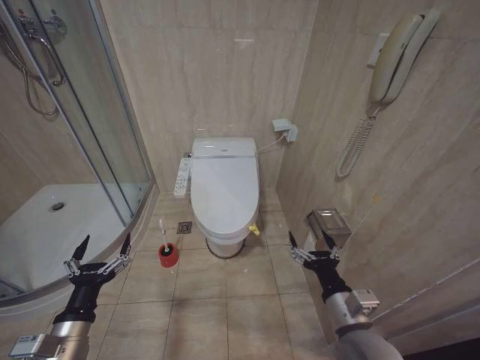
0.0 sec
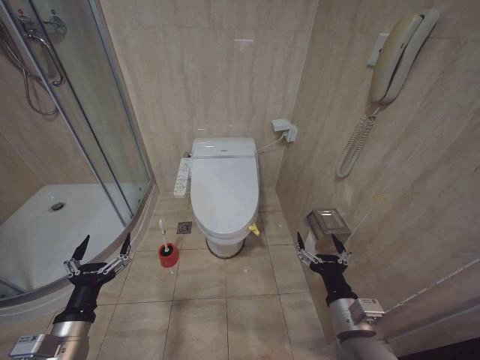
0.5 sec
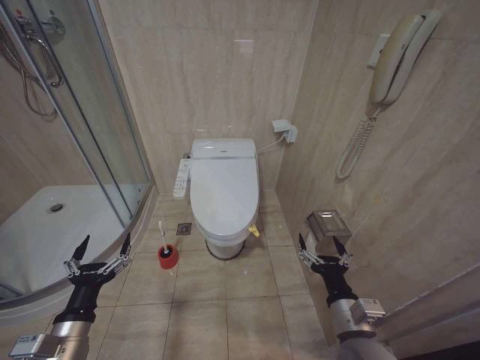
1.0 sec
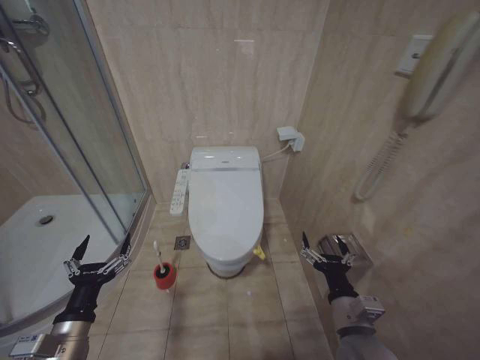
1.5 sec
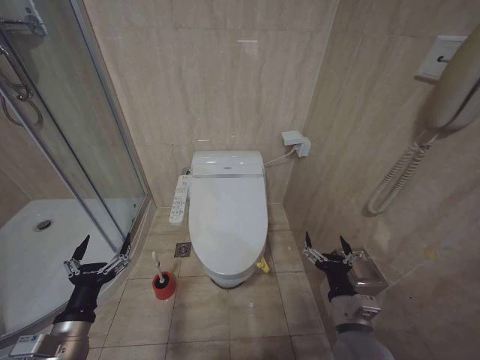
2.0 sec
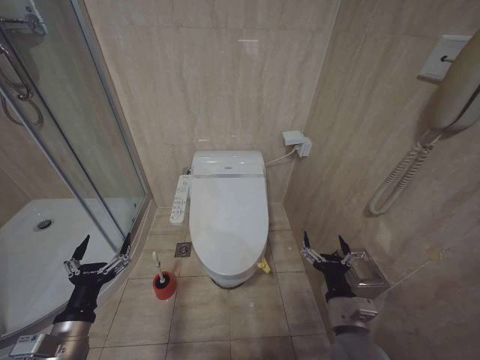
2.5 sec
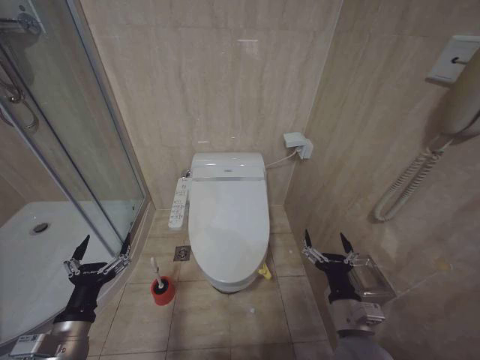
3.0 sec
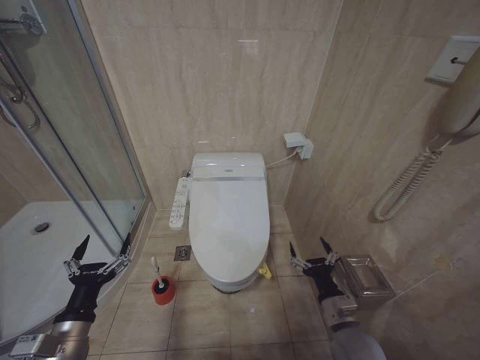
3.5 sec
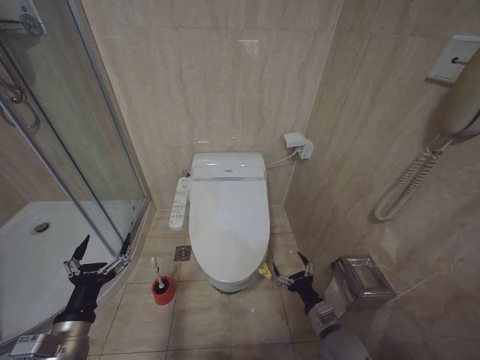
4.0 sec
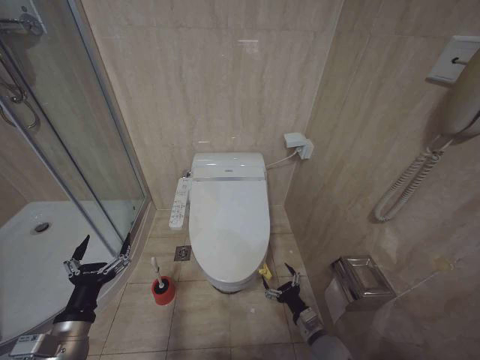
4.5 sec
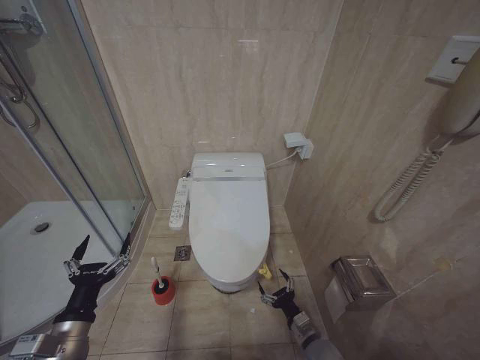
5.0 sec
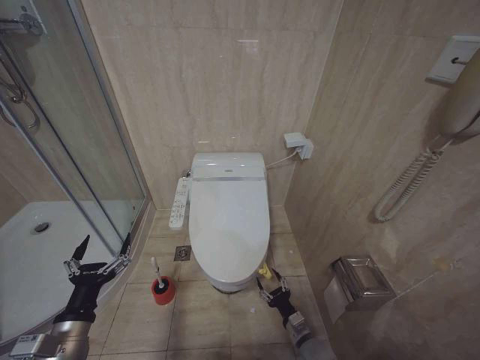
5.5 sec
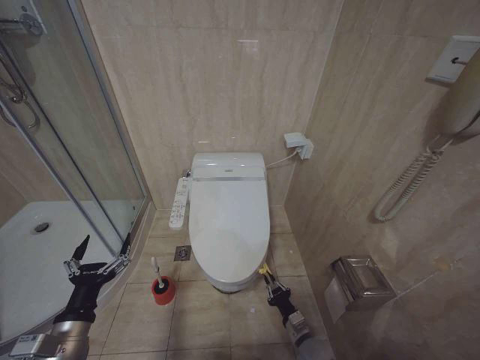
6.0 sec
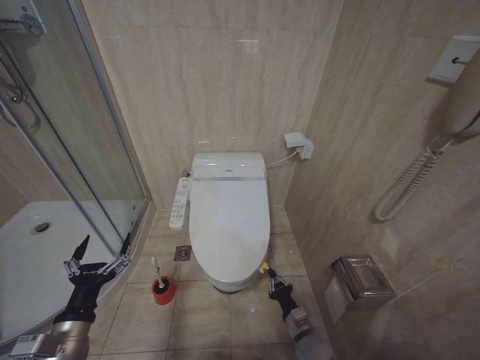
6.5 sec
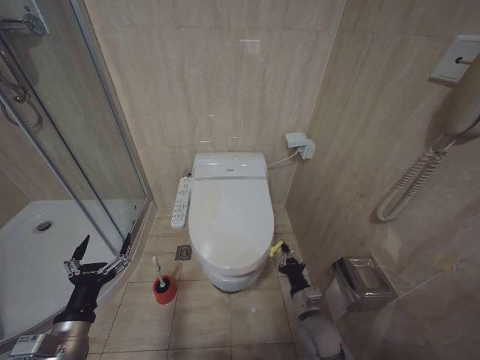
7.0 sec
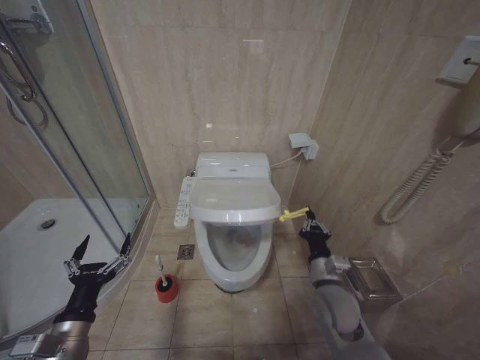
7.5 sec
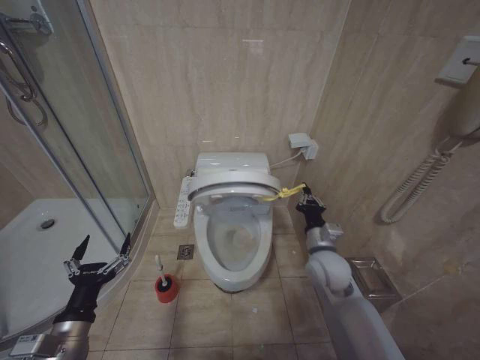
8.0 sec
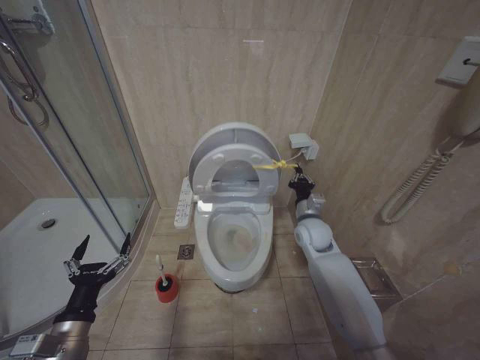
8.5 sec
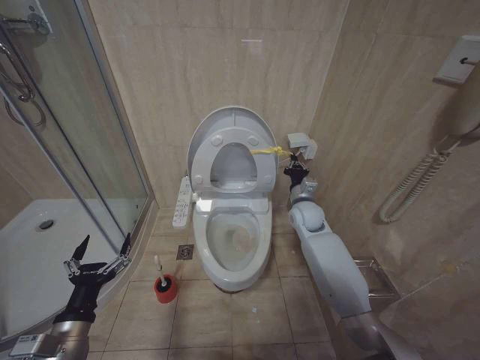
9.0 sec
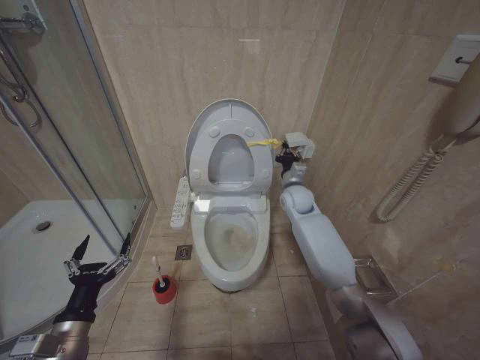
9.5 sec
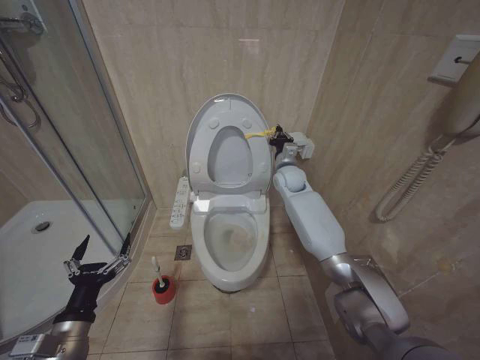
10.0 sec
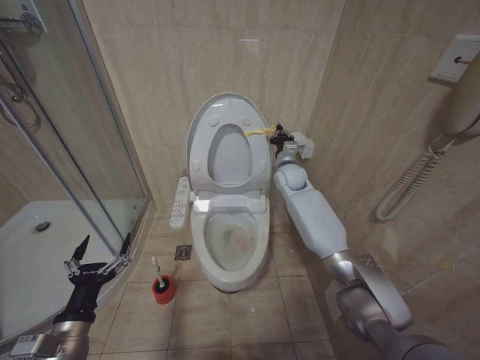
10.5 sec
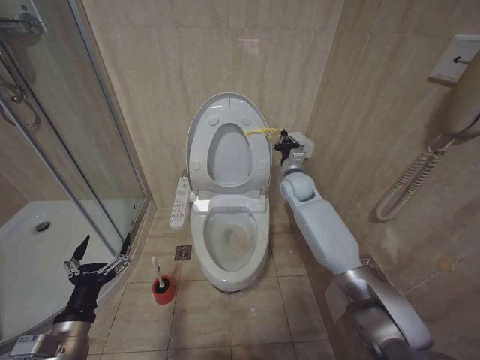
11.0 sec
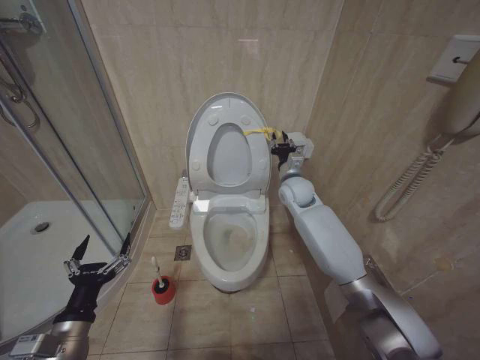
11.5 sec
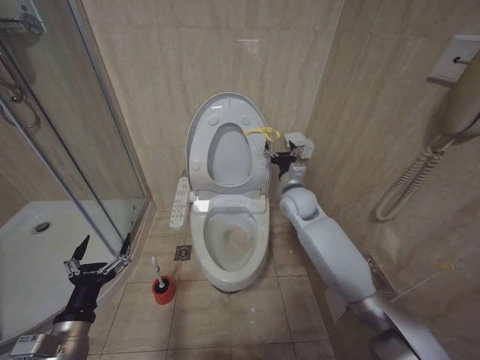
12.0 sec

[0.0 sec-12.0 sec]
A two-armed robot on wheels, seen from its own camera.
Task of the whole recording: Open the toilet lid, clean the toilet bowl with a toilet brush, close the toilet lid, and flush.
2.0 sec to 4.0 sec: The right gripper moves downward, roughly 10 cm.
4.0 sec to 6.0 sec: The right gripper moves downward, about 10 cm, and closes up.
6.0 sec to 8.0 sec: The right gripper is displaced upward and forward by some 25 cm, and closes its fingers.
8.0 sec to 10.0 sec: The right gripper travels forward and upward by roughly 25 cm.
10.0 sec to 12.0 sec: The right gripper moves backward, some 10 cm, and opens up.

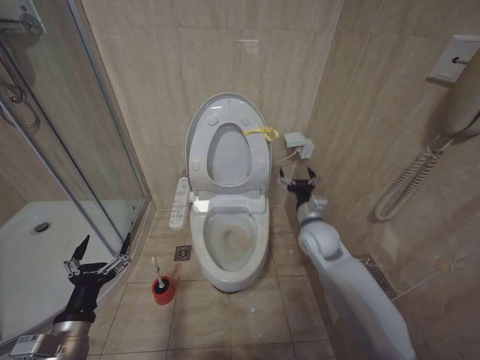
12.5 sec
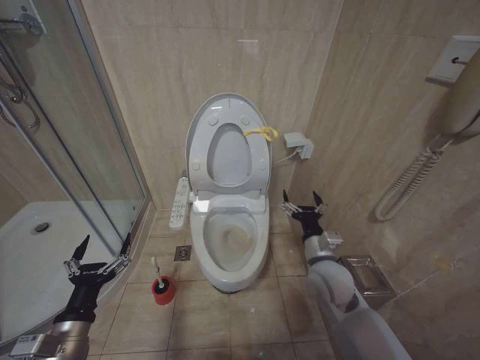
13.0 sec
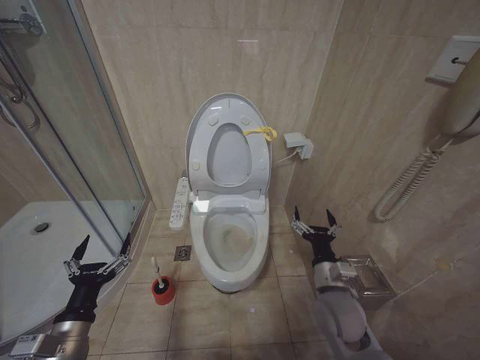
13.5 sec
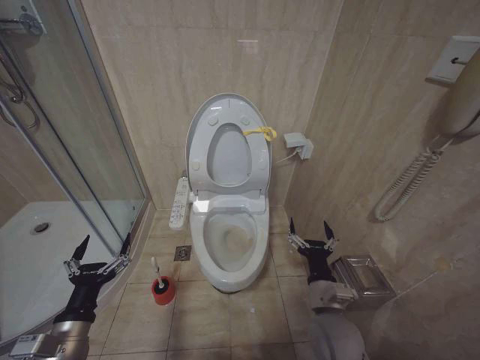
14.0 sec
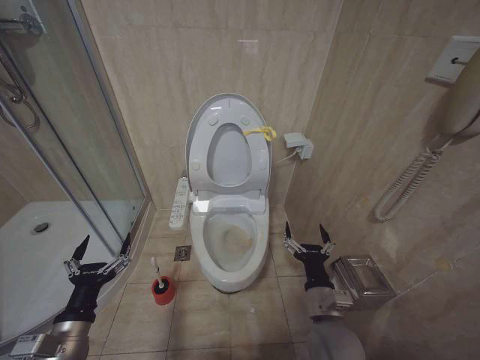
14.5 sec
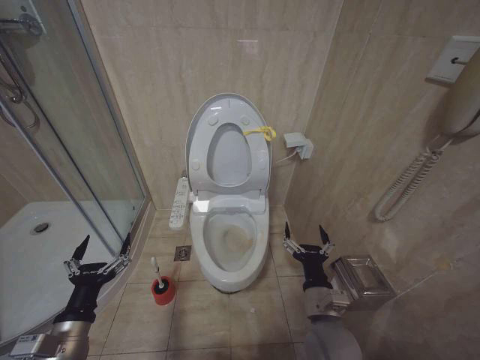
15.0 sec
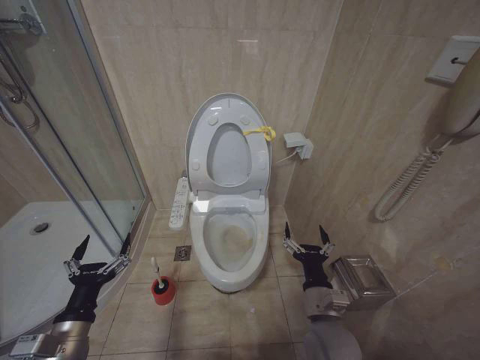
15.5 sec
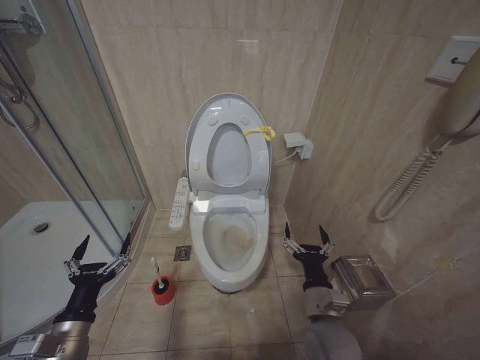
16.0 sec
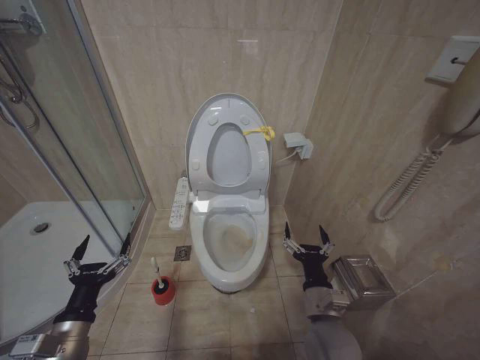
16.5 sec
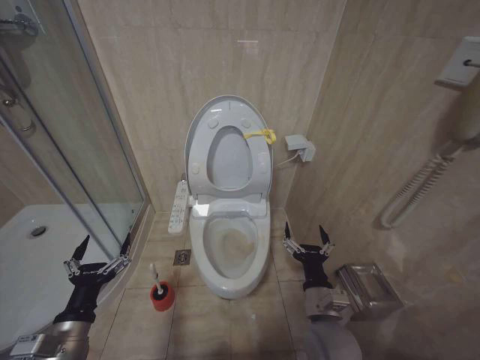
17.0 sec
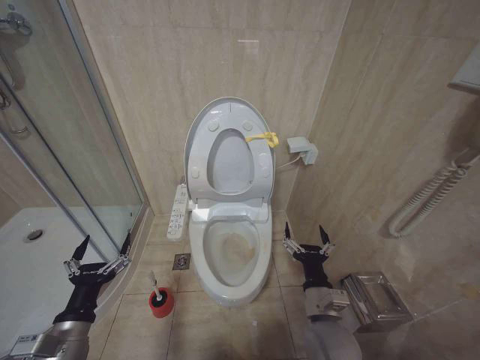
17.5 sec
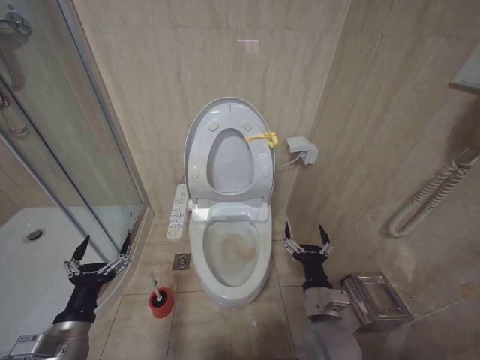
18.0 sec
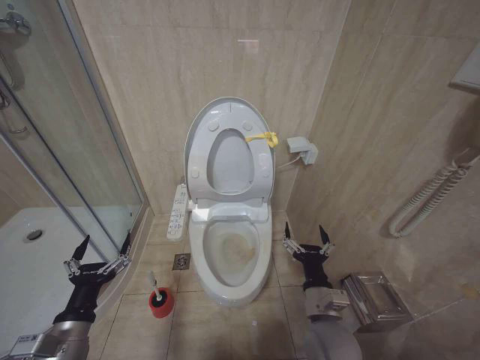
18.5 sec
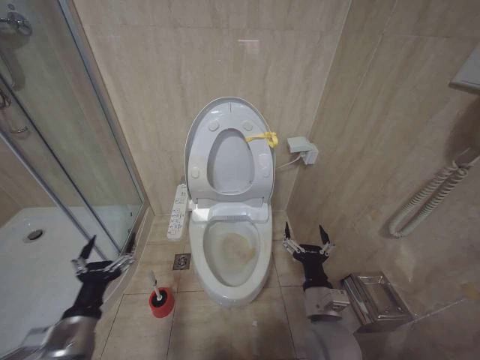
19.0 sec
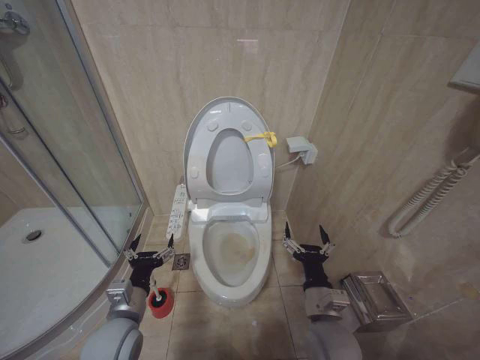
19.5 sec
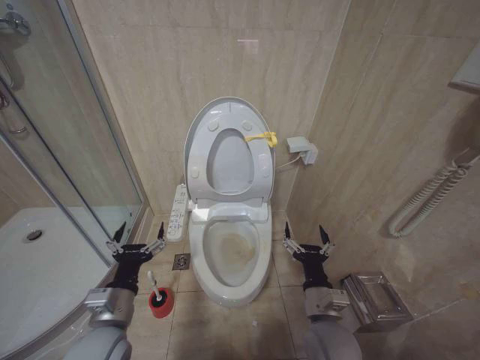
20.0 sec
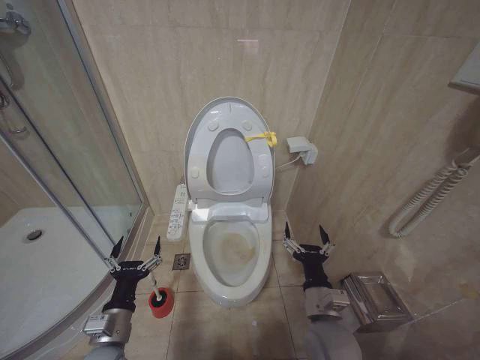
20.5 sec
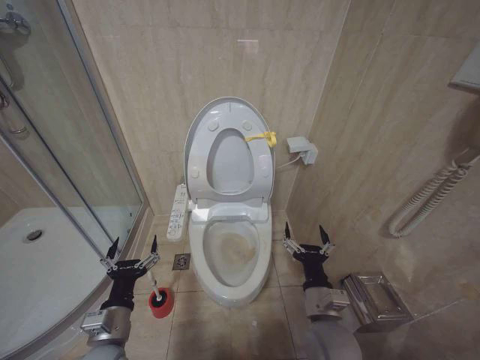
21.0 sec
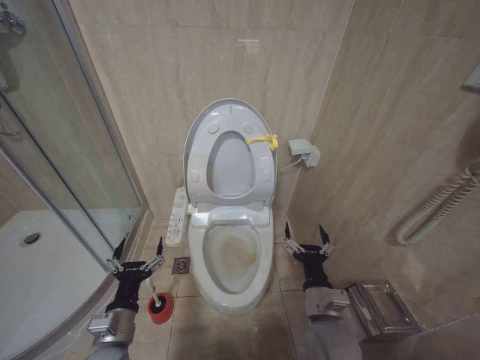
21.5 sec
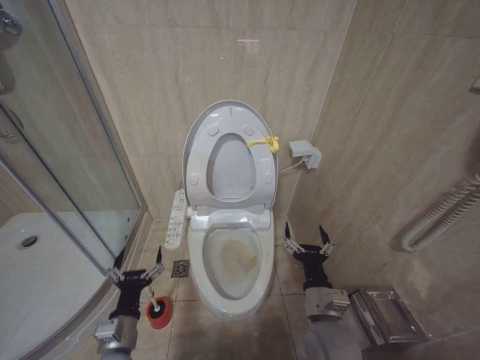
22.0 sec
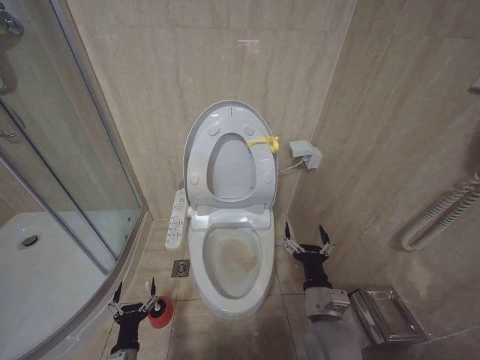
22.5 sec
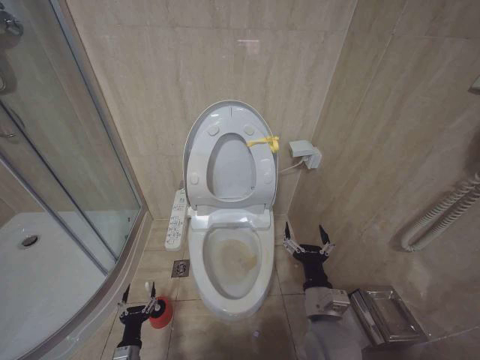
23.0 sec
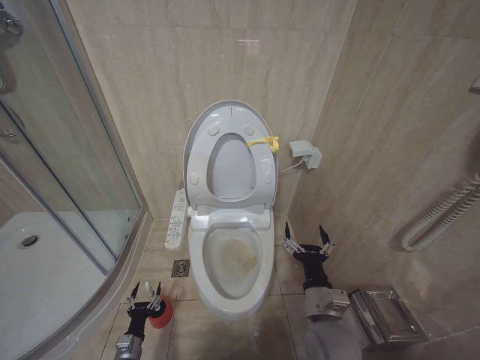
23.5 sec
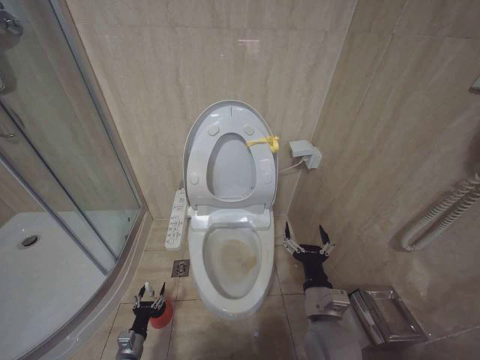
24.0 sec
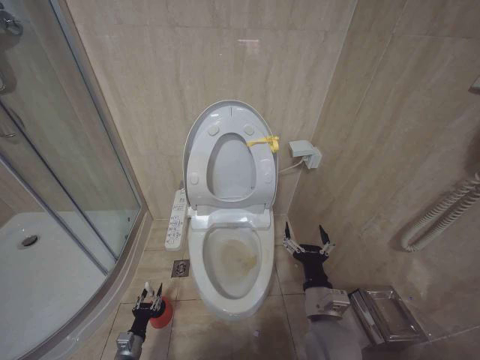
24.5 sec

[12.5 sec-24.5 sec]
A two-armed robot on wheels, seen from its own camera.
Task of the whole recording: Open the toilet lid, clean the toilet bowl with a toilet brush, close the toilet lid, and flush.
12.5 sec to 14.5 sec: The right gripper shifts some 25 cm backward and downward.
14.5 sec to 18.5 sec: Neither gripper changes place.
18.5 sec to 20.5 sec: The left gripper shifts some 5 cm to the right.
20.5 sec to 22.5 sec: The left gripper heads downward, covering approximately 15 cm.
22.5 sec to 24.5 sec: The left gripper is displaced downward, forward and to the left by some 15 cm.

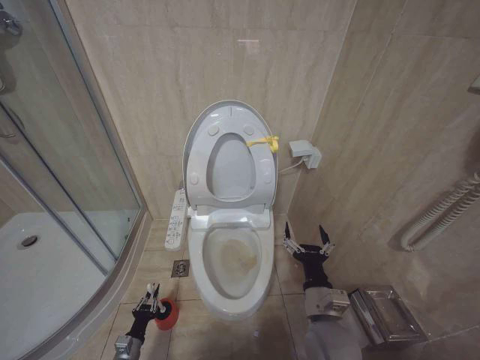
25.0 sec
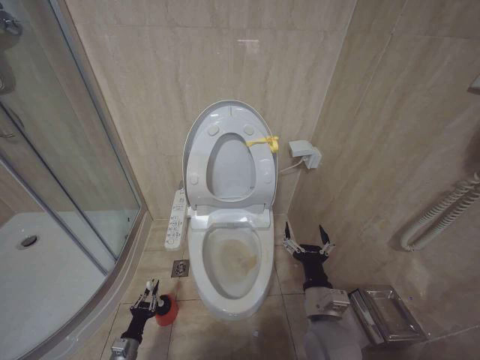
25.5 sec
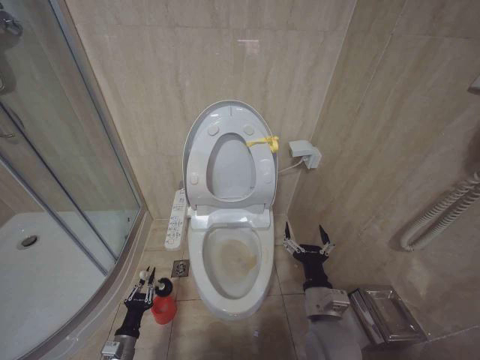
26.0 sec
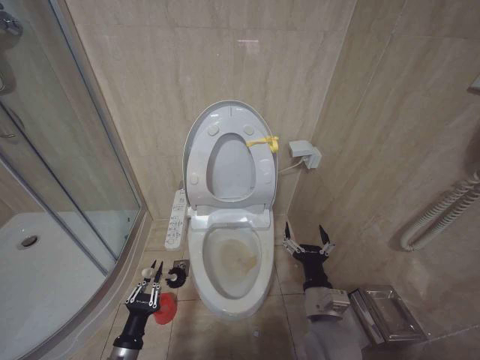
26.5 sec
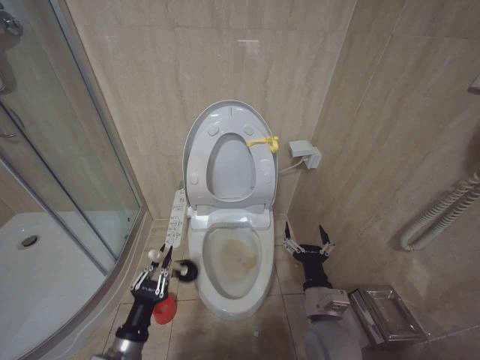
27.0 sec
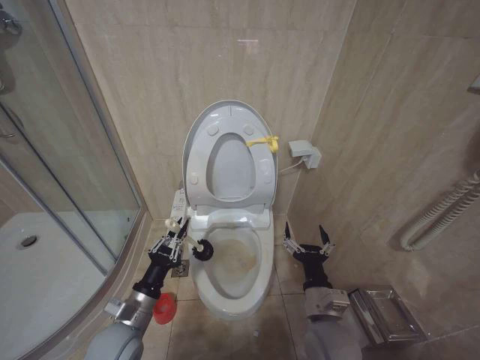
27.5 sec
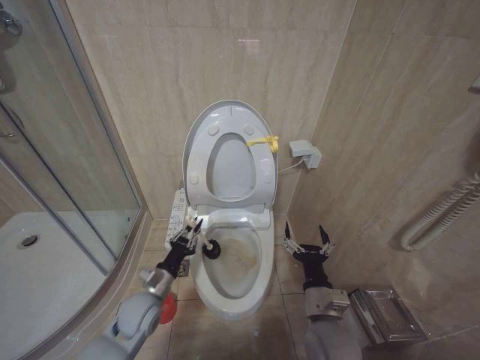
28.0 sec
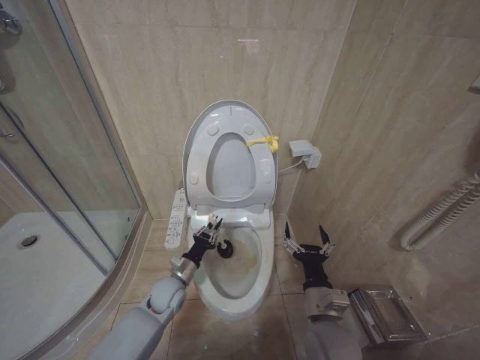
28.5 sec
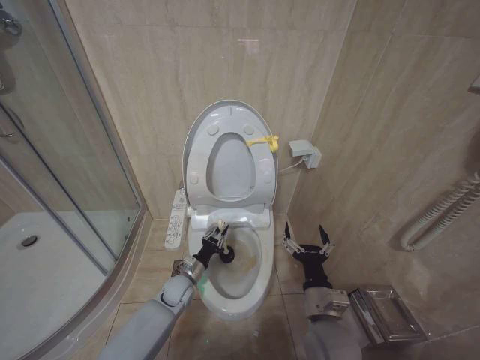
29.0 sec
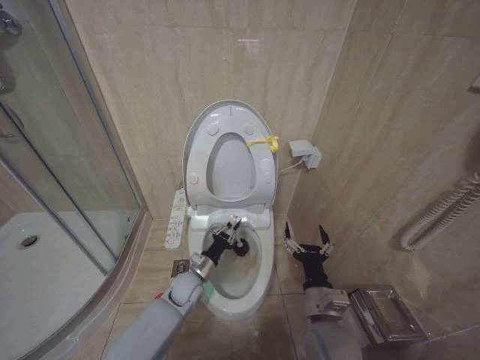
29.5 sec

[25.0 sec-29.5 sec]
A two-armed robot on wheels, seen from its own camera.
Task of the whole recording: Open the toilet lid, clean the toilet bowl with a toilet brush, close the toilet lid, and flush.
25.0 sec to 27.0 sec: The left gripper is displaced upward by some 25 cm.
27.0 sec to 29.5 sec: The left gripper travels forward and to the right by about 25 cm.
